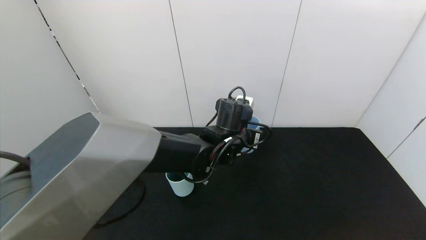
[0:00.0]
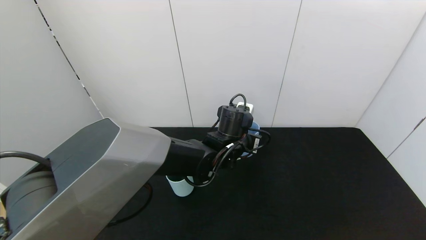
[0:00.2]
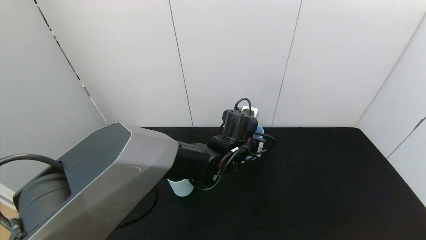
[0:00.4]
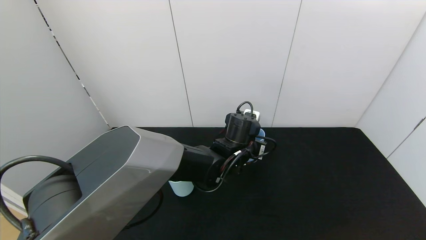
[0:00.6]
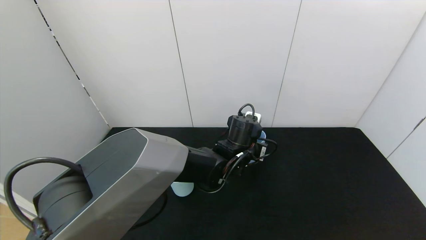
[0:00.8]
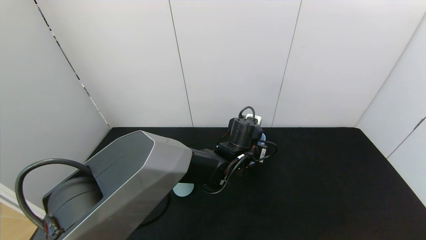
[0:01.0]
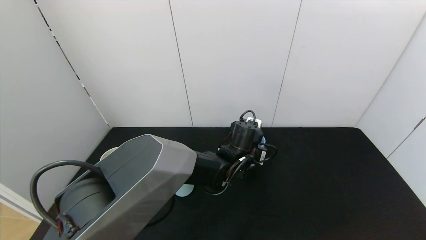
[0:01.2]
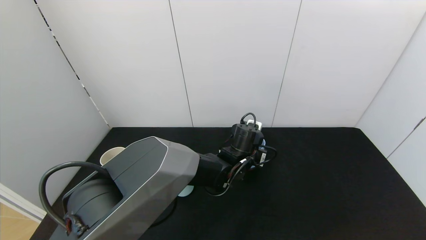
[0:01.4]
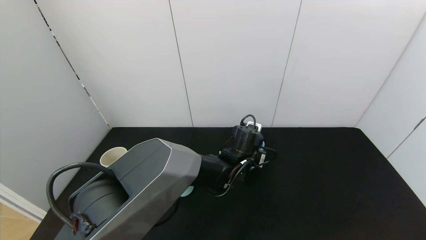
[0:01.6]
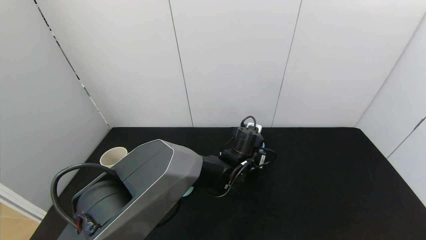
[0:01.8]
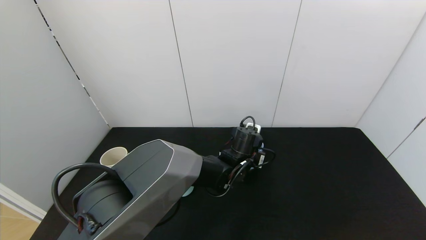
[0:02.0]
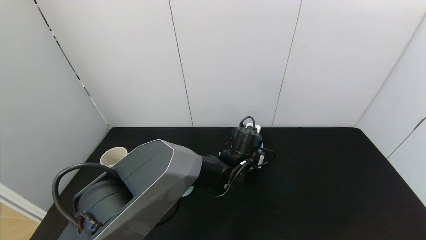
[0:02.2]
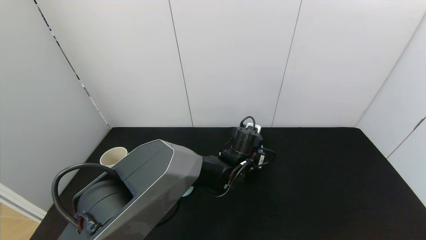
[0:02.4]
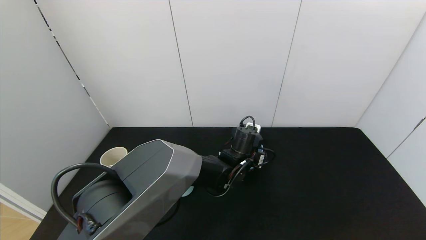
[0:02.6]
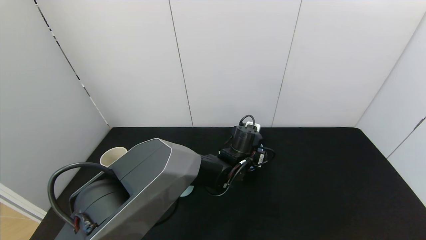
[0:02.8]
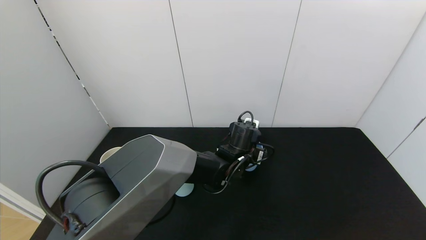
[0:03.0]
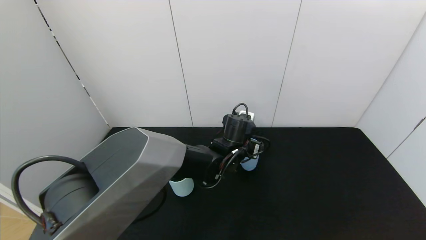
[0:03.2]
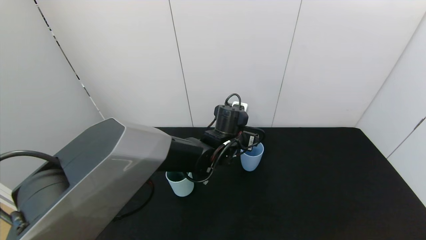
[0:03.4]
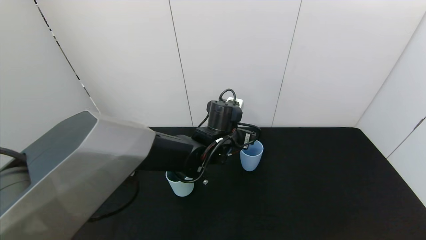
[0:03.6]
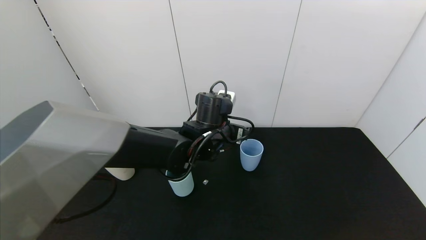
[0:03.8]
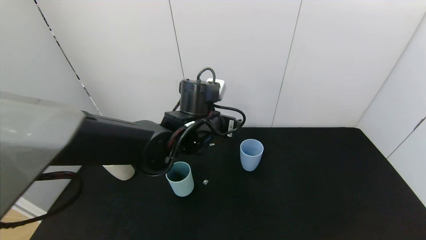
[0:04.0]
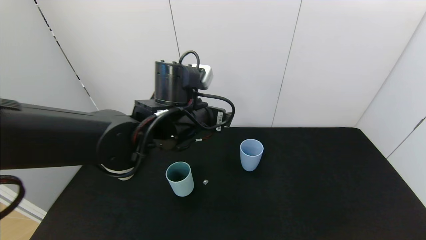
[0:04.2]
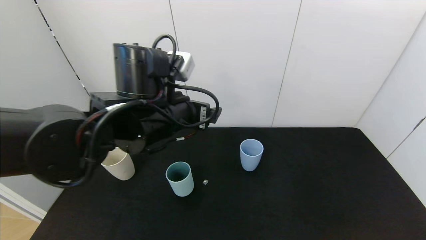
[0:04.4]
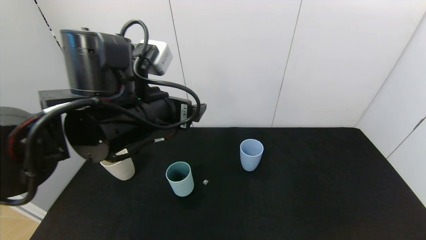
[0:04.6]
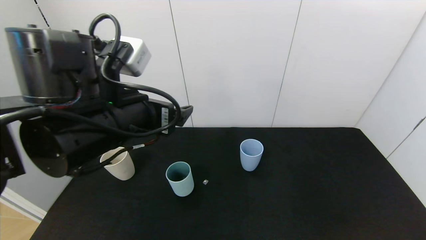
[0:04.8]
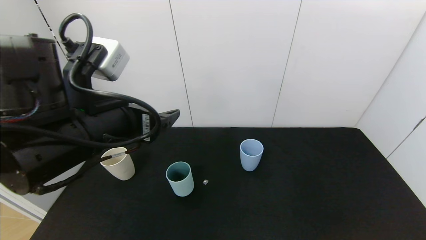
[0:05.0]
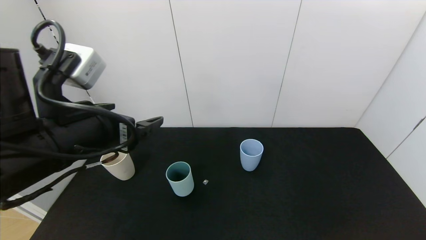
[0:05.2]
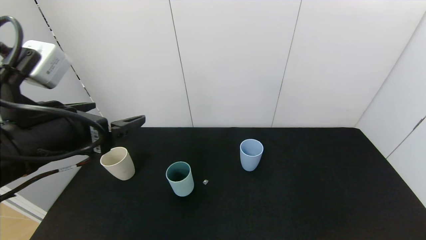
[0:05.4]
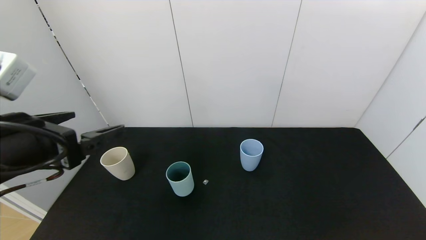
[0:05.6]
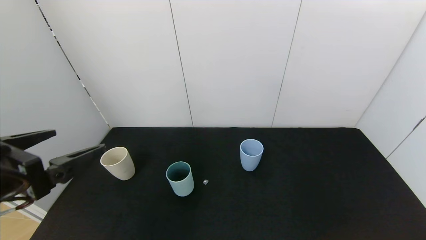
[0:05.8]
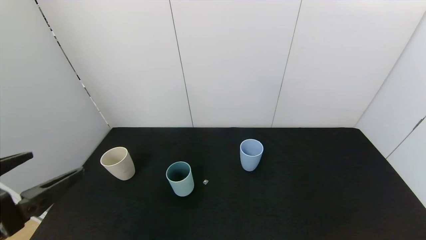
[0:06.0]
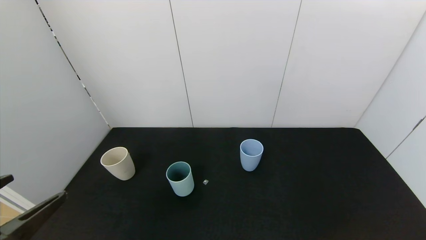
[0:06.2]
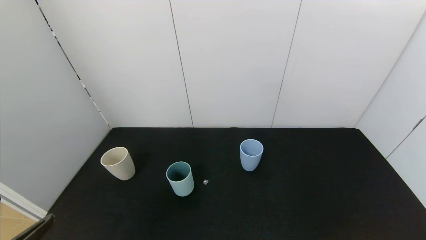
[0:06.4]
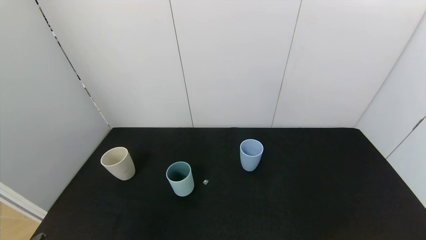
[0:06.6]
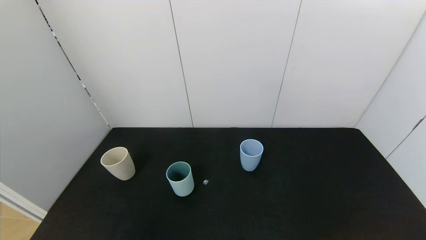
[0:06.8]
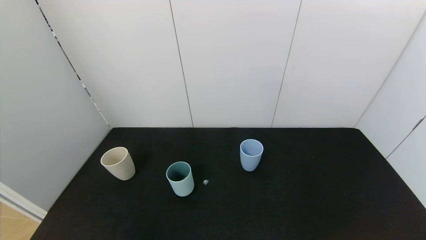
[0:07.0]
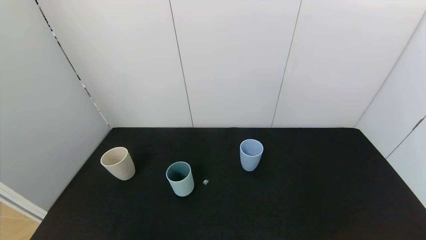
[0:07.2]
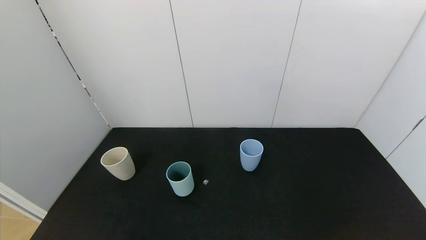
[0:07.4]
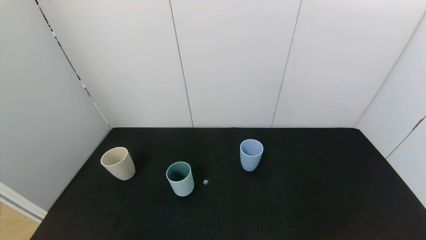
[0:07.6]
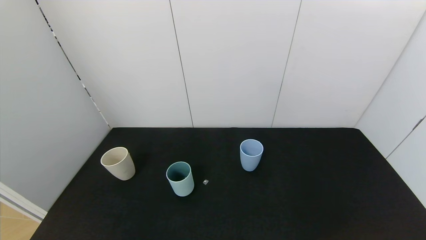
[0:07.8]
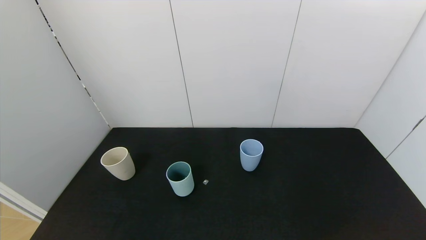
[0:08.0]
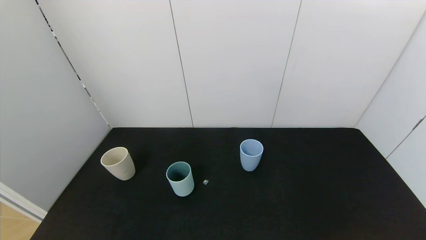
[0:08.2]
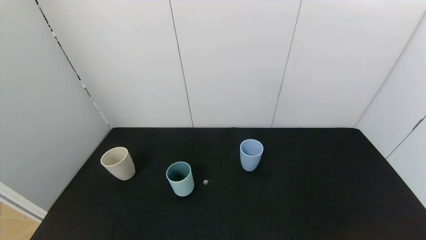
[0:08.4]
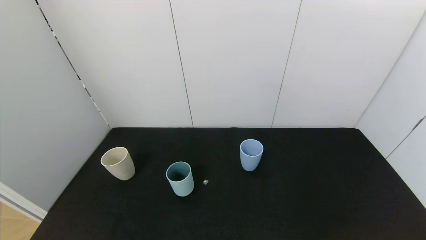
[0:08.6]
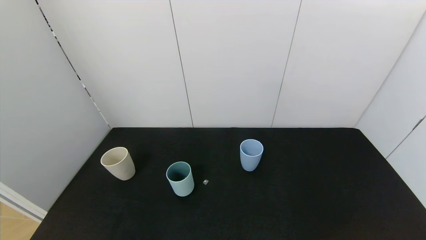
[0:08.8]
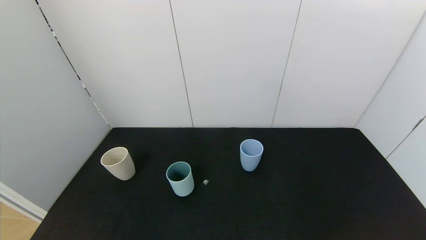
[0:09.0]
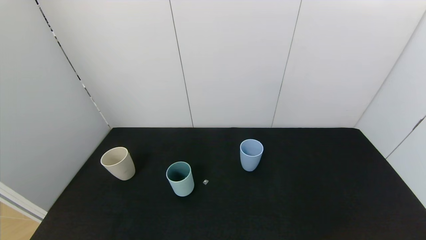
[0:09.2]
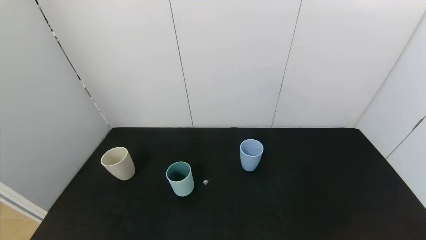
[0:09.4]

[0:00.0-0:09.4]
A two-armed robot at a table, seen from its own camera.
Task of the whole recording: use the gripper to pour the water into the other two cups on black table.
Step, 0:00.0 to 0:04.0: Place the blue cup with the left gripper.
0:00.0 to 0:01.6: The left gripper goes roughly 10 cm downward.
0:01.6 to 0:03.2: The left gripper opens its fingers.
0:03.2 to 0:04.8: The left gripper shifts roughly 30 cm to the left, upward and backward.
0:04.8 to 0:06.2: The left gripper shifts about 20 cm backward and to the left.
0:06.2 to 0:07.8: The left gripper goes about 15 cm downward and backward.
